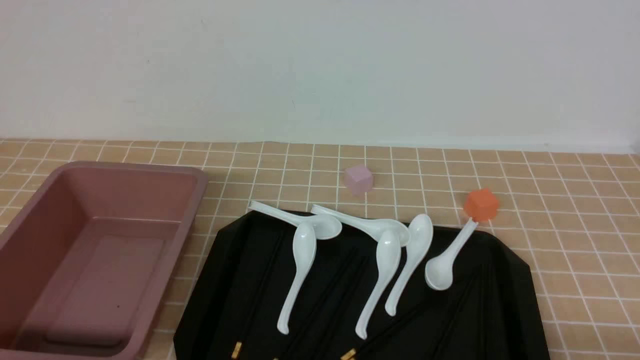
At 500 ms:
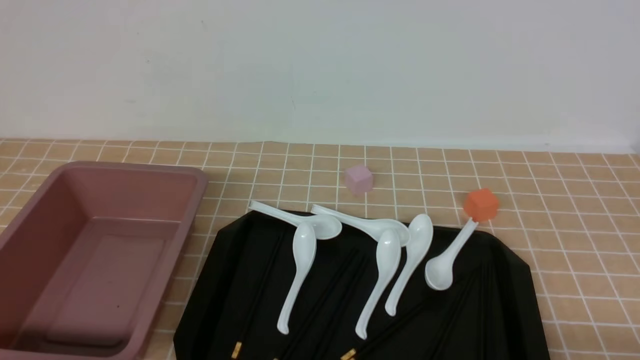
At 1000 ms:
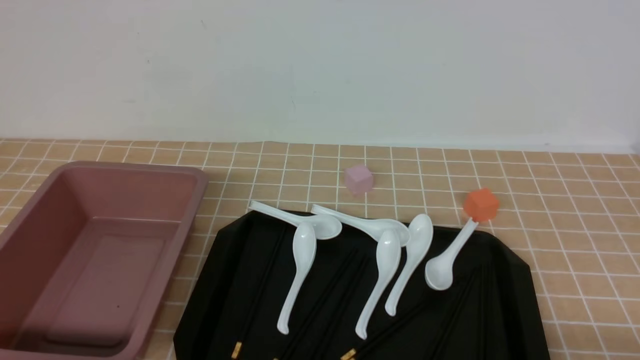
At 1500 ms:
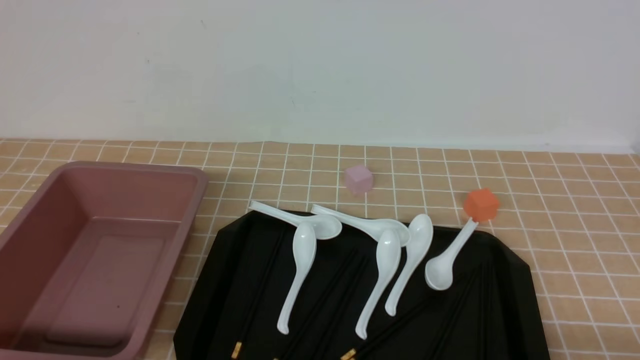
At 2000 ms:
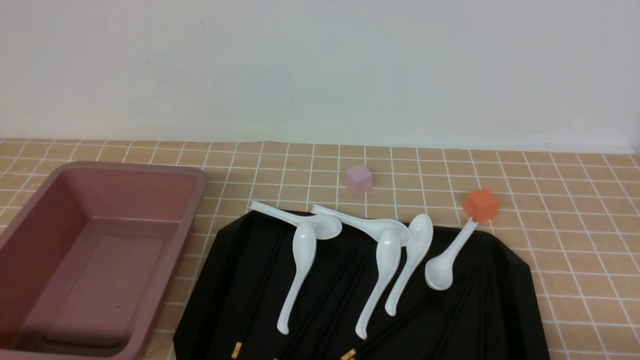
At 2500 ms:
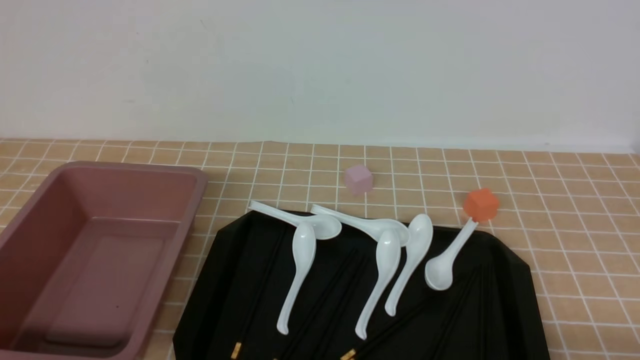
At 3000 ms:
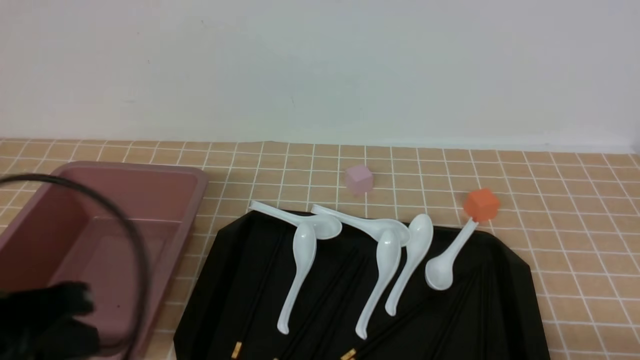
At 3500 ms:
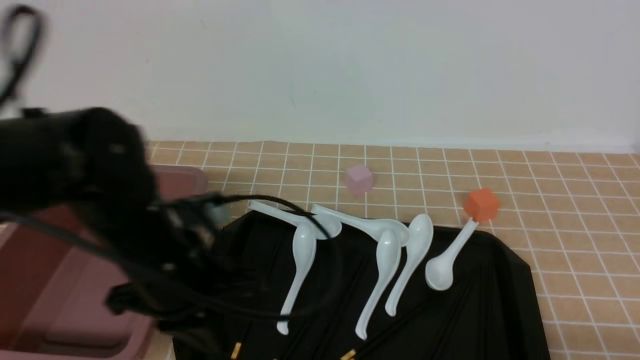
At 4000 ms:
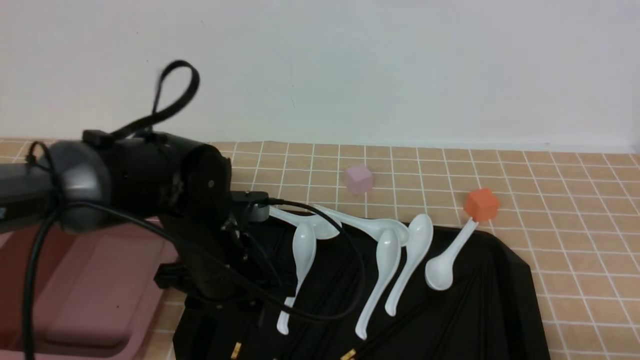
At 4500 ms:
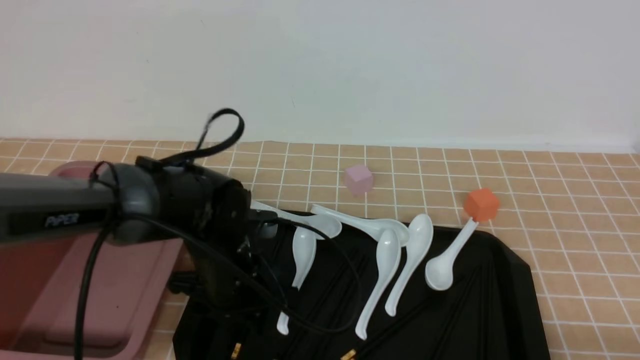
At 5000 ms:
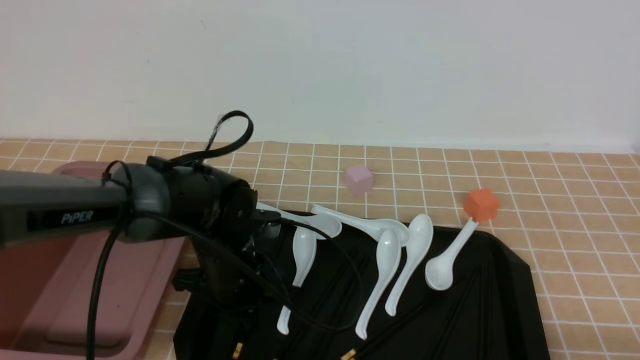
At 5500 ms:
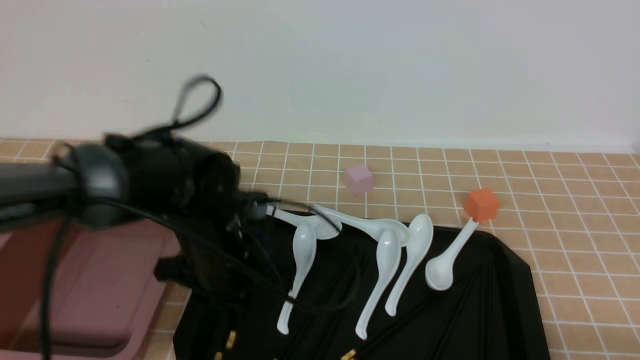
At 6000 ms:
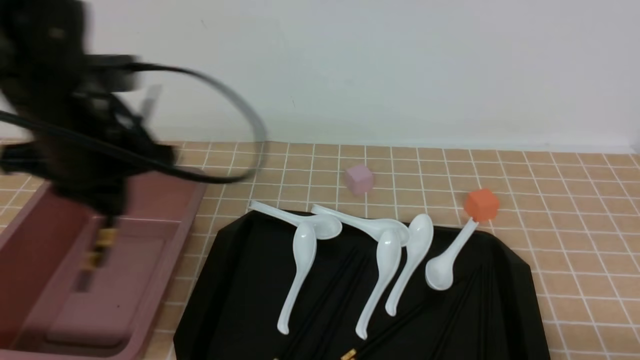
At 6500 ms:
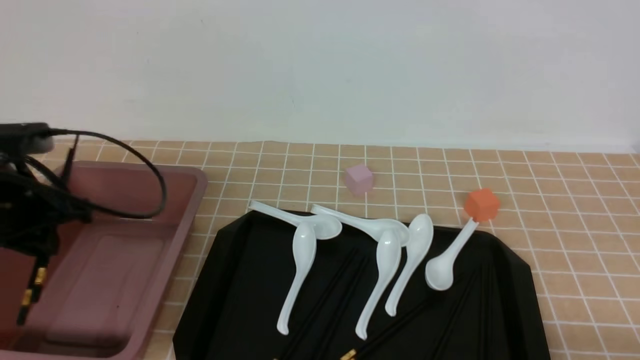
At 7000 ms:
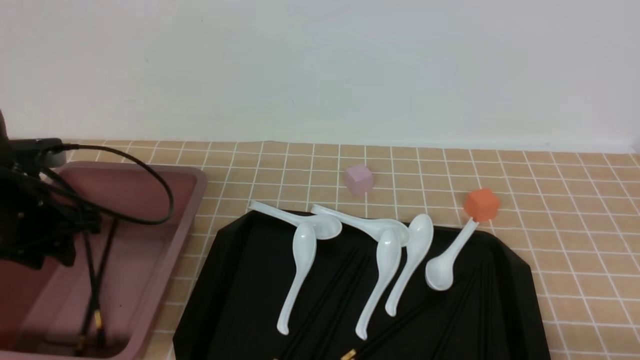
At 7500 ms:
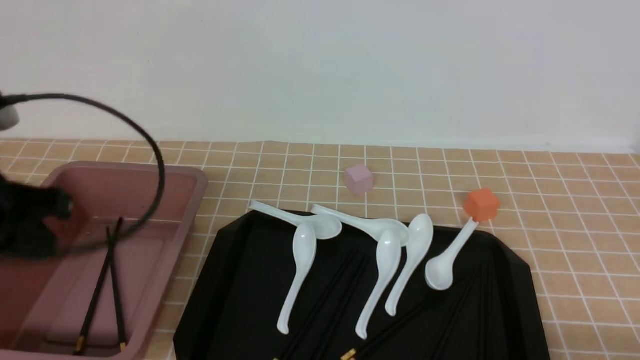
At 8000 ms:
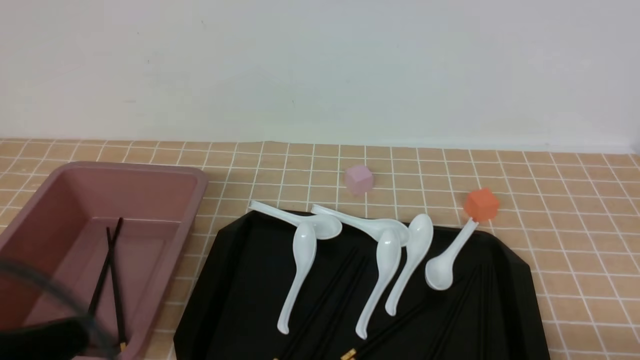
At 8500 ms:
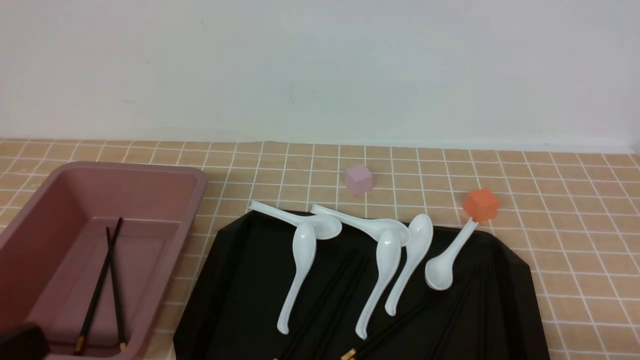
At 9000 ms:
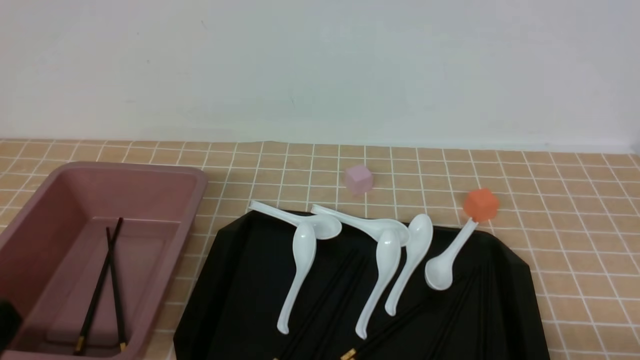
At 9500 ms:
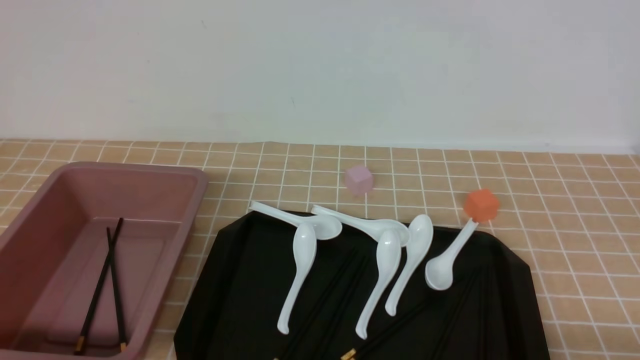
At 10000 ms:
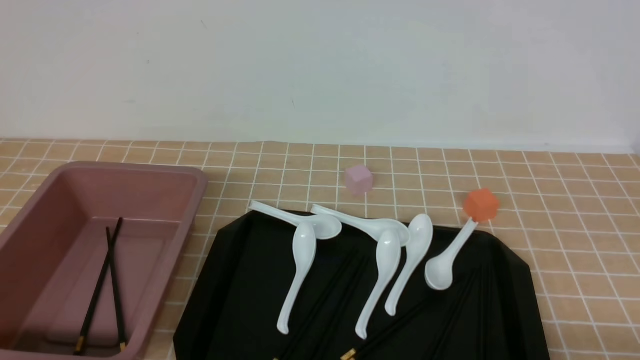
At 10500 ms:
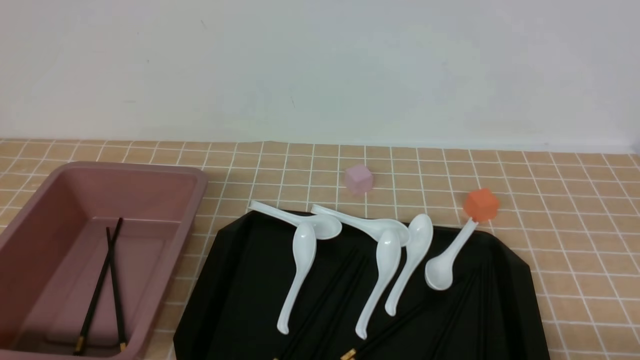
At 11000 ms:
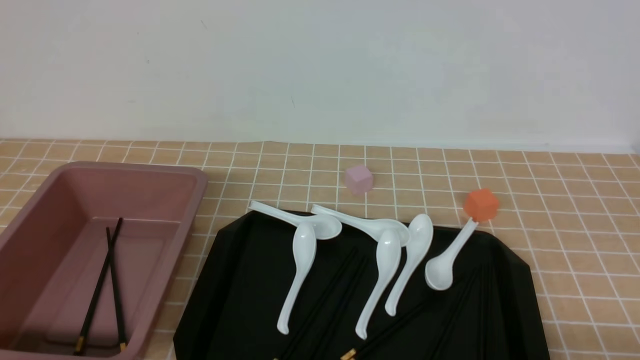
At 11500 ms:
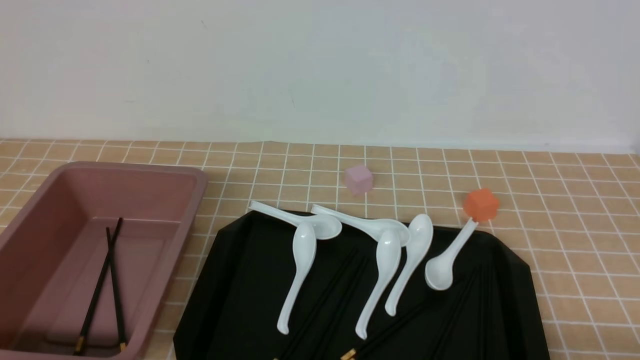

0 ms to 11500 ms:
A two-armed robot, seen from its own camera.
Step, 0 ms to 5500 ms: use the left arm to grab a pair of chopsticks.
Step, 6000 ms to 7000 ms: use the left arm to put the chopsticks into the lunch box.
2000 ms to 4000 ms: The left gripper shifts roughly 30 cm forward and to the right, and closes and opens again.
4000 ms to 6000 ms: The left gripper is displaced upward and to the left by roughly 15 cm, and closes its fingers.
6000 ms to 7500 ms: The left gripper shifts roughly 10 cm backward and to the left, and closes its fingers.
7500 ms to 9500 ms: The left gripper goes approximately 20 cm backward and downward.
9500 ms to 11500 ms: Both grippers stay about where they are.

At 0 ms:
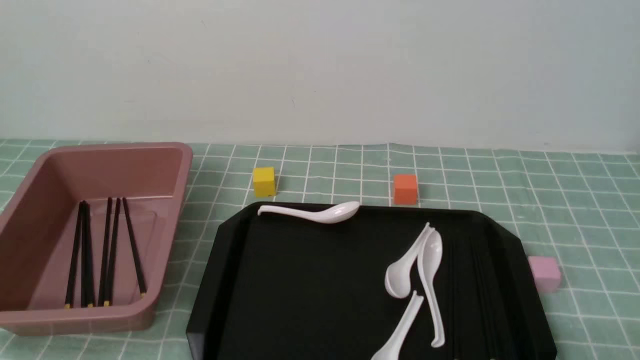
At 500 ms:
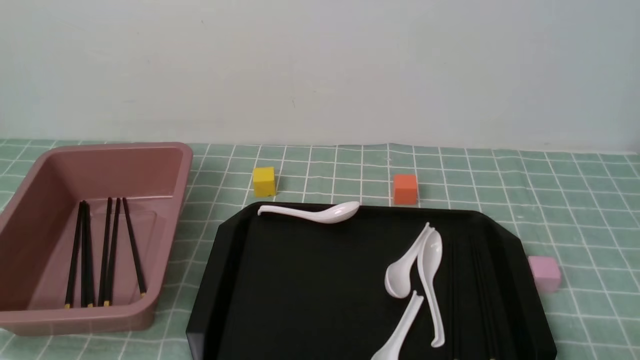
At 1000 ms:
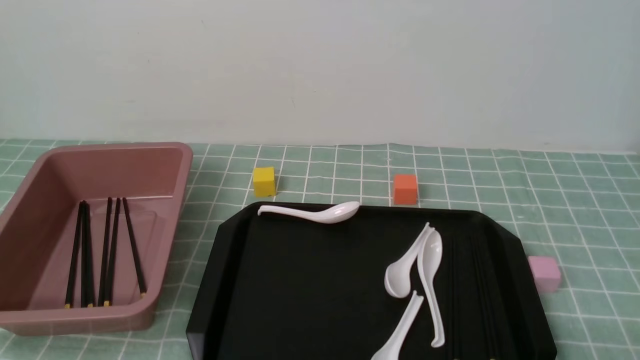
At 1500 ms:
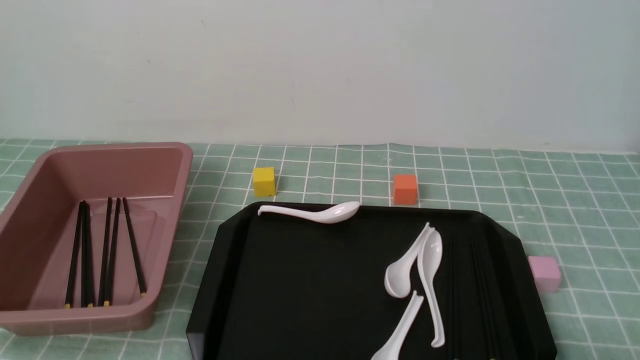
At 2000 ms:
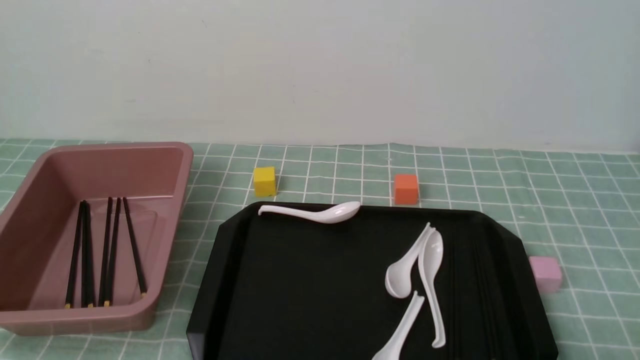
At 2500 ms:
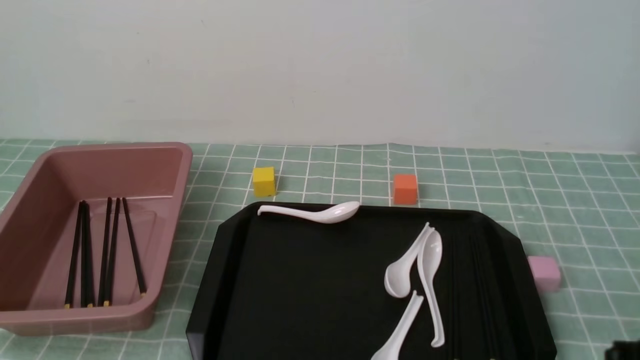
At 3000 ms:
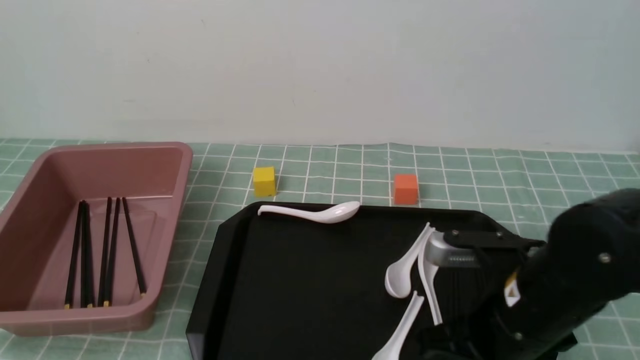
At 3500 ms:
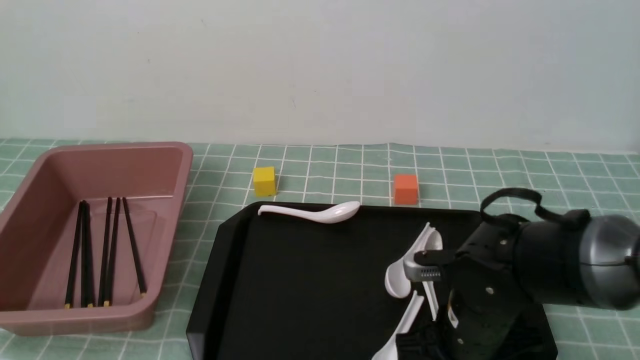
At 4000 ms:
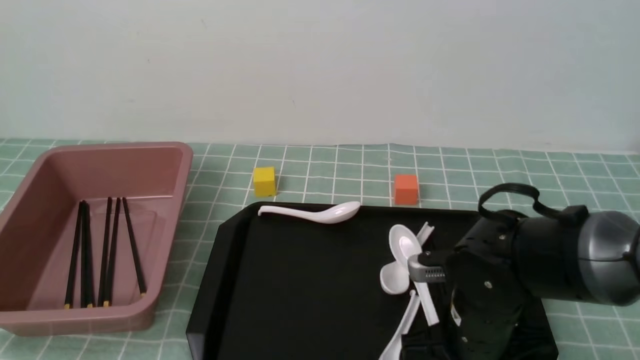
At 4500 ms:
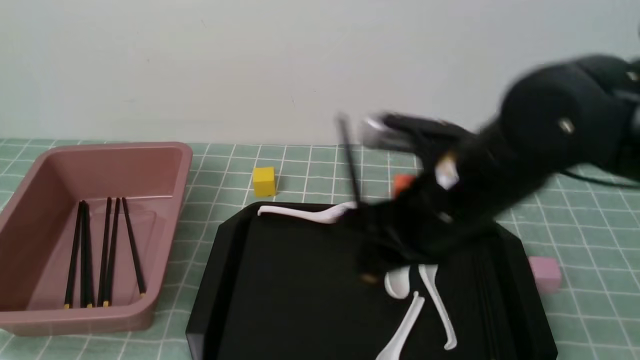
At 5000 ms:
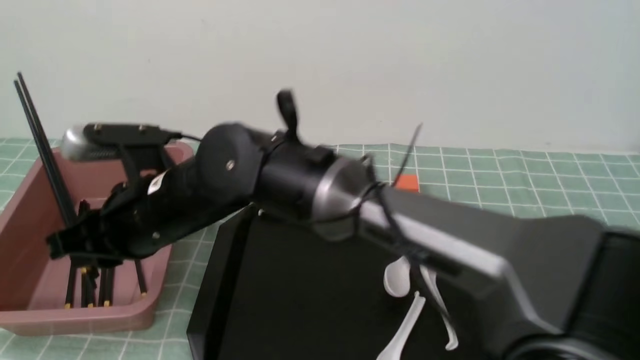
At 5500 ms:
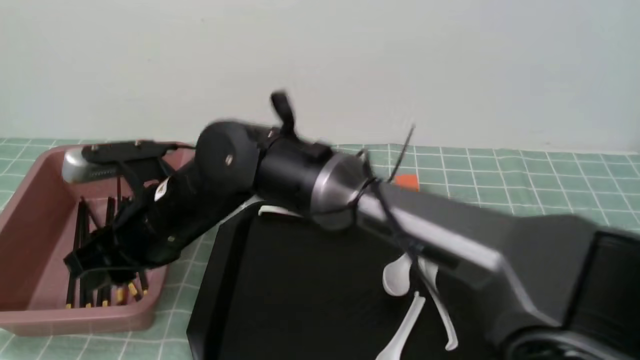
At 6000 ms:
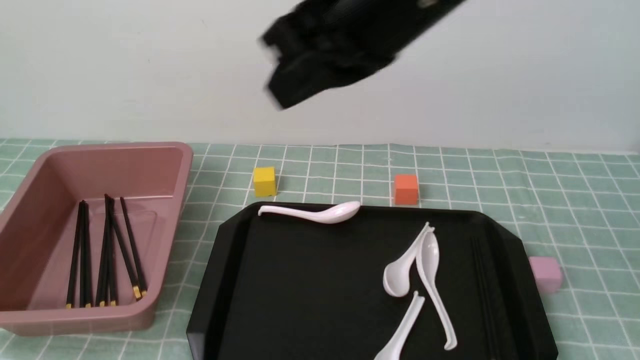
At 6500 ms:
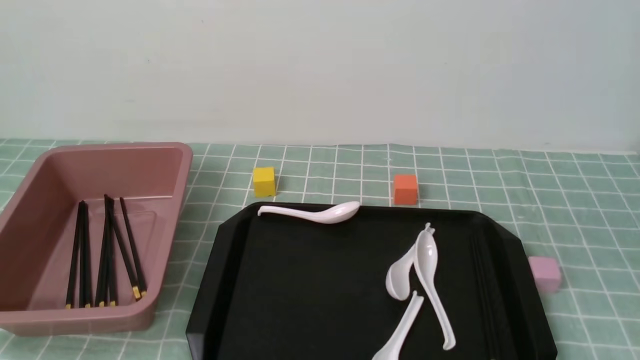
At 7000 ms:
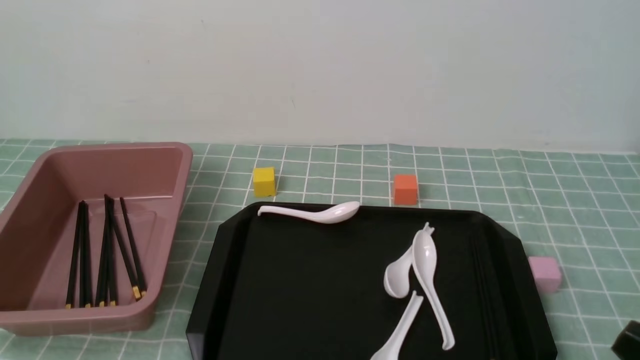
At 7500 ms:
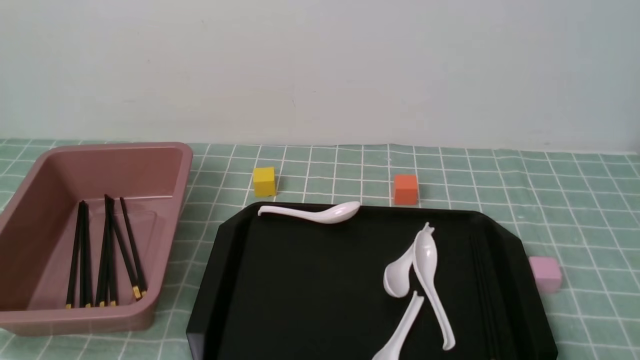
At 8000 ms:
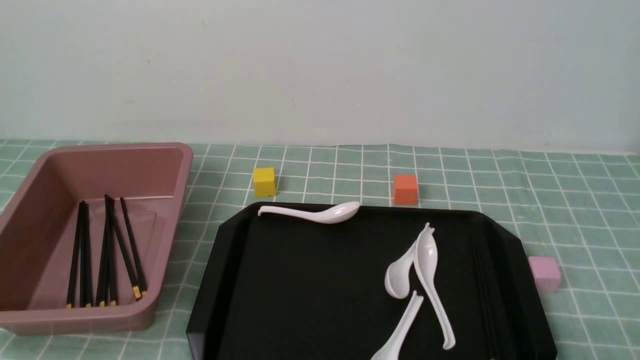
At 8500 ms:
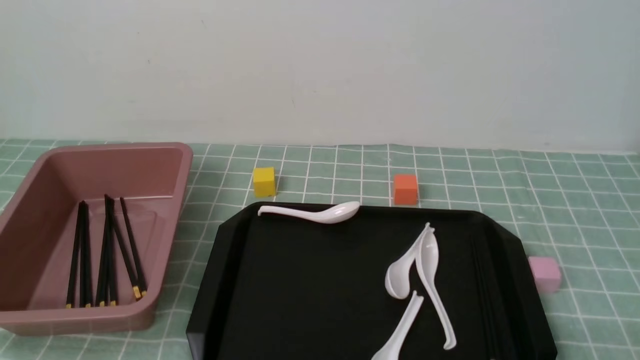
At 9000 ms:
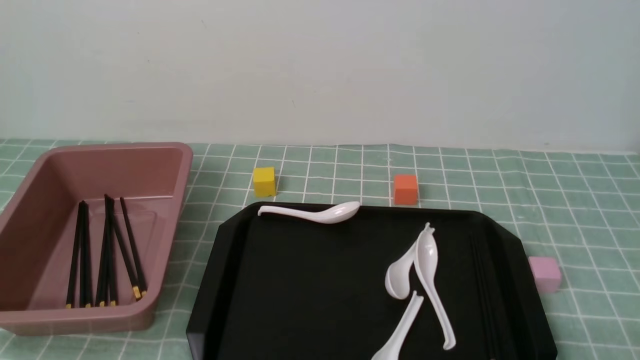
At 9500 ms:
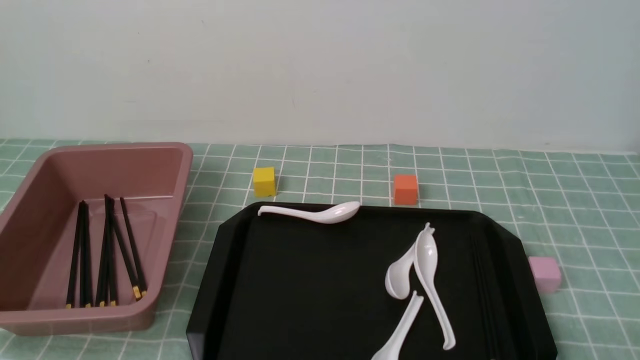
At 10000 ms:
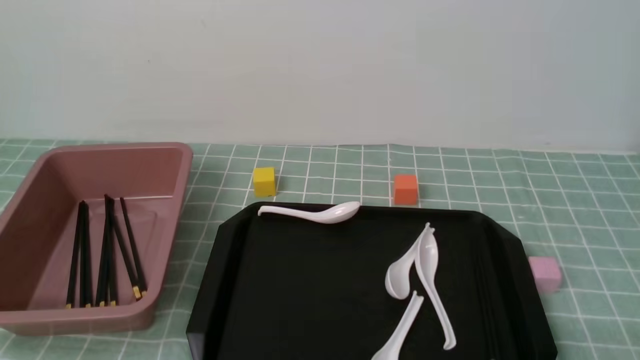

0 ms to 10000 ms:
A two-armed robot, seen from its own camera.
Step, 0 ms to 4000 ms: use the right arm to grab a pair of chopsticks.
Step, 4500 ms to 5500 ms: use the right arm to put the chopsticks into the lunch box.
2000 ms to 4000 ms: The right gripper shifts some 25 cm forward and to the left, and closes, then opens again.
4000 ms to 6000 ms: The right gripper moves up and down over some 30 cm, changing direction 2 times, and closes its fingers.
6000 ms to 8000 ms: The right gripper travels downward, to the right and backward by some 40 cm.
